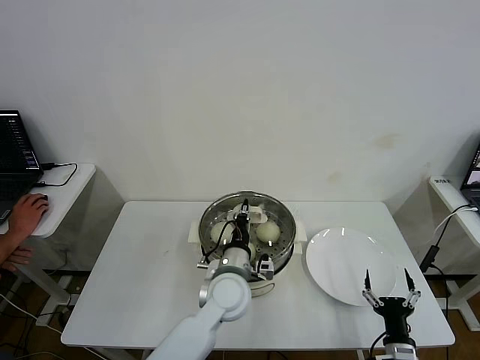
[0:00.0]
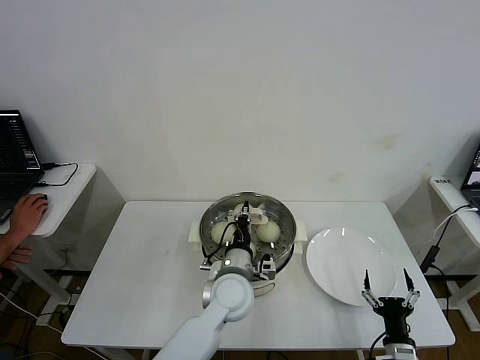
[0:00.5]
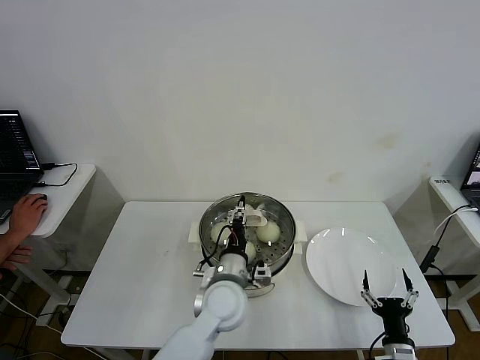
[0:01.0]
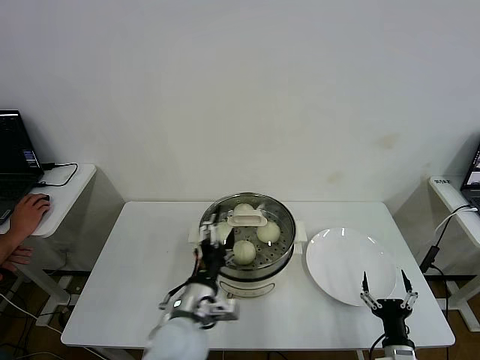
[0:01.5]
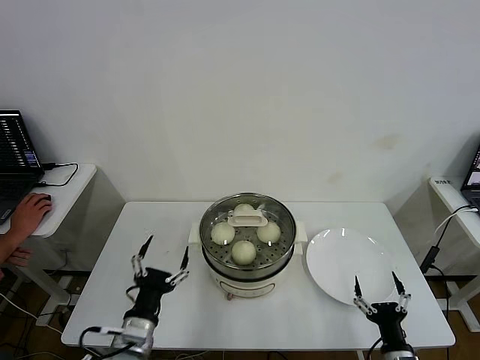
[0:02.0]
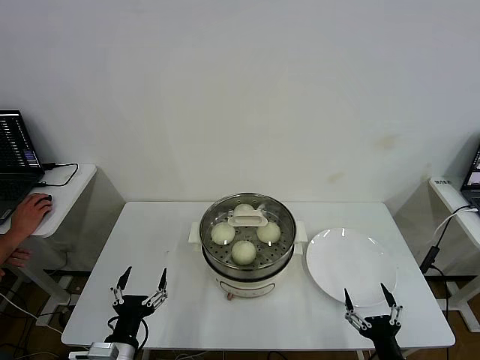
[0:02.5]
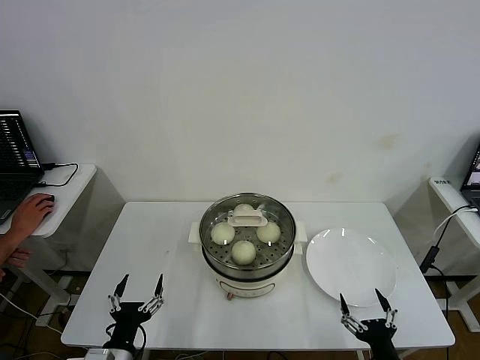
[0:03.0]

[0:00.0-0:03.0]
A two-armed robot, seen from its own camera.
0:00.0 to 0:01.5: The left gripper moves backward and to the left, about 10 cm, and opens its fingers.
0:01.5 to 0:03.0: The left gripper goes roughly 20 cm to the left, backward and downward. The right gripper is displaced backward and upward by roughly 10 cm.

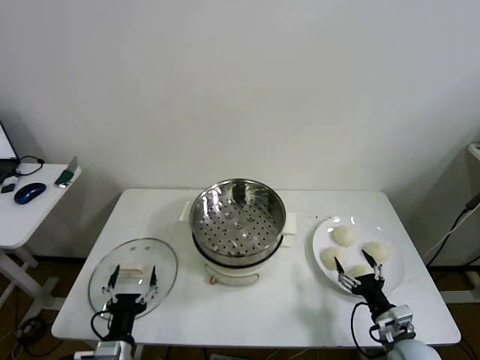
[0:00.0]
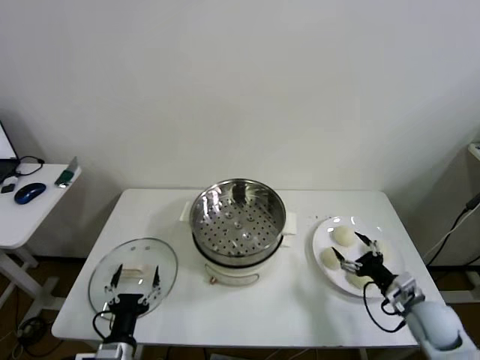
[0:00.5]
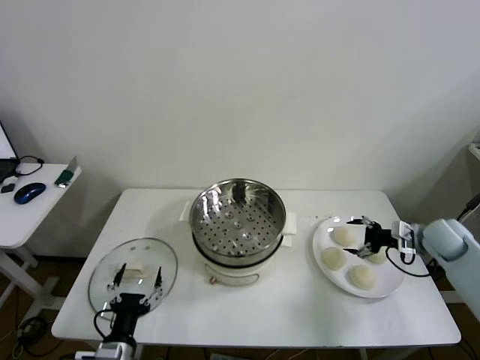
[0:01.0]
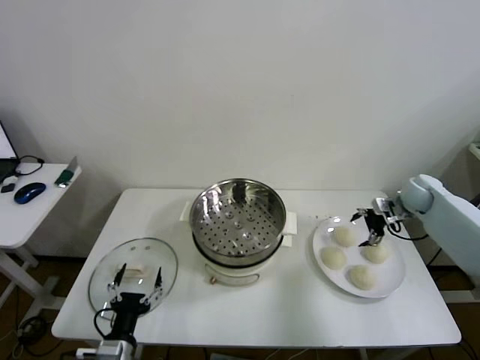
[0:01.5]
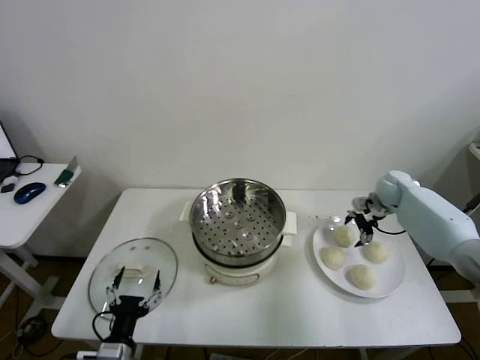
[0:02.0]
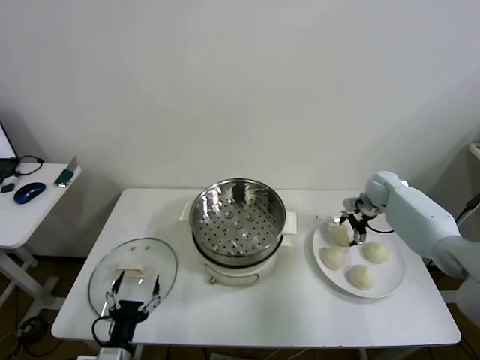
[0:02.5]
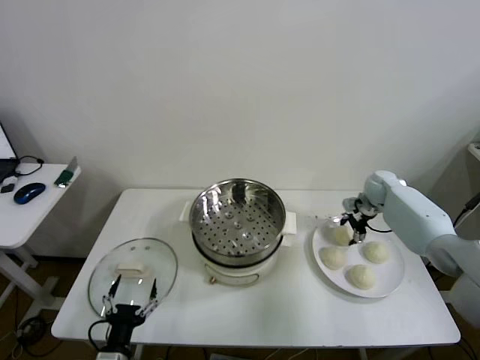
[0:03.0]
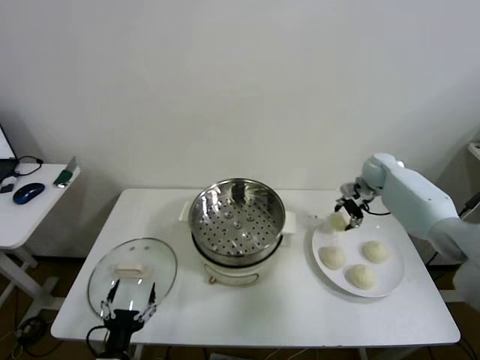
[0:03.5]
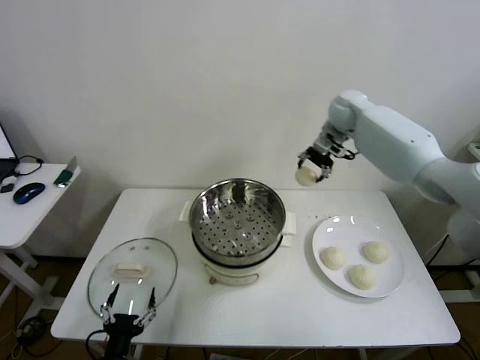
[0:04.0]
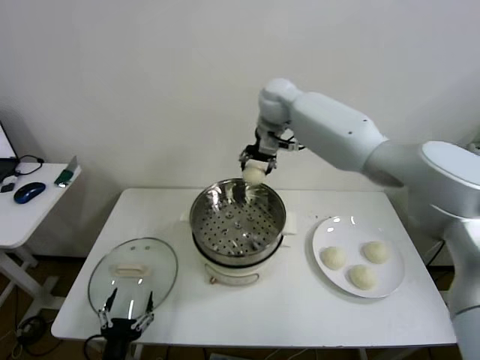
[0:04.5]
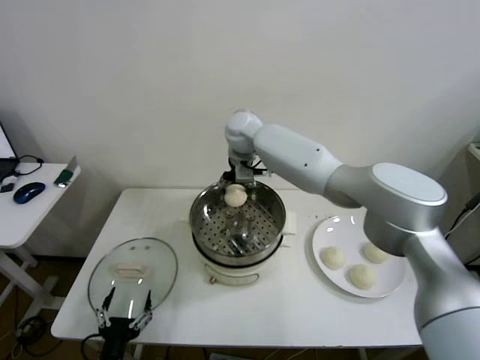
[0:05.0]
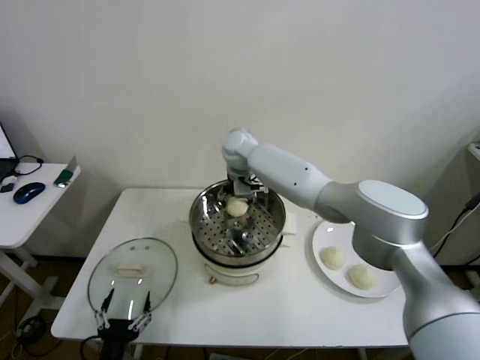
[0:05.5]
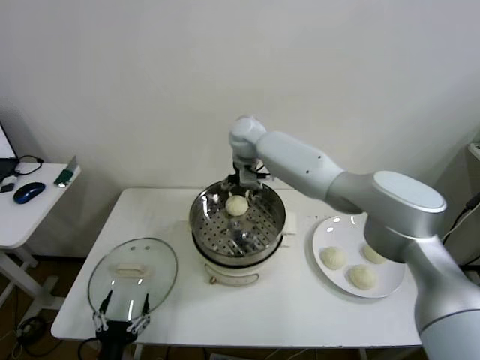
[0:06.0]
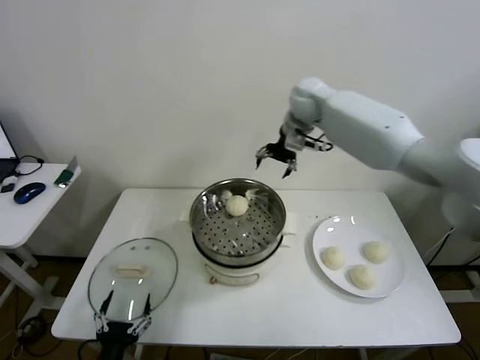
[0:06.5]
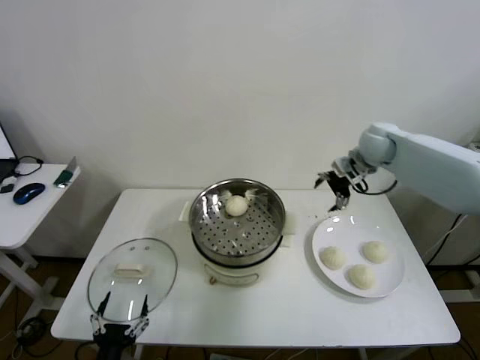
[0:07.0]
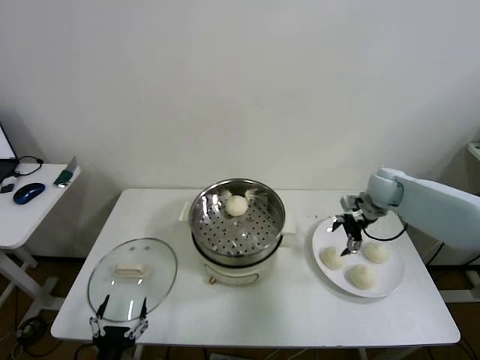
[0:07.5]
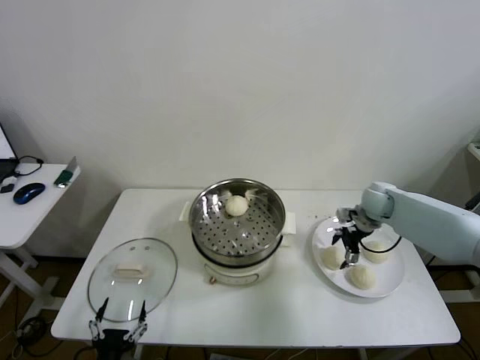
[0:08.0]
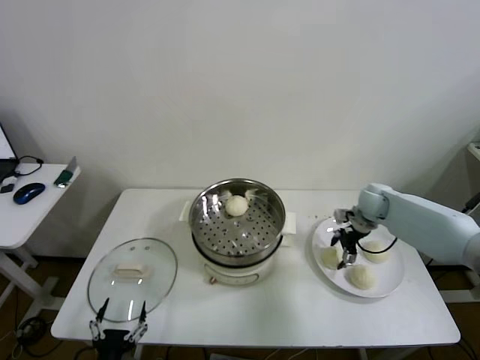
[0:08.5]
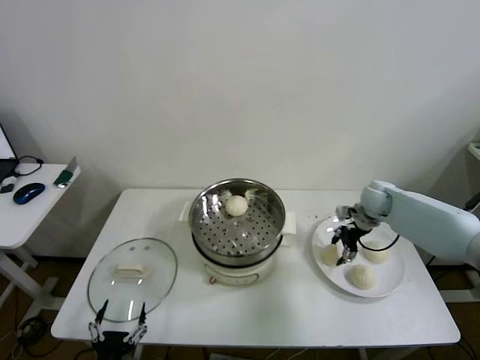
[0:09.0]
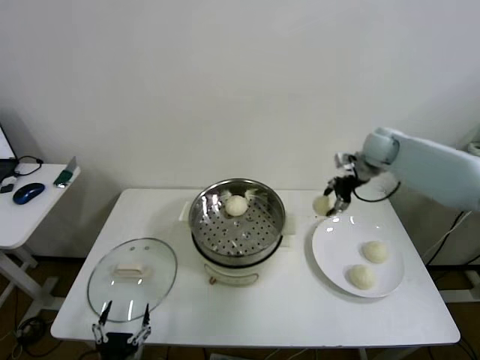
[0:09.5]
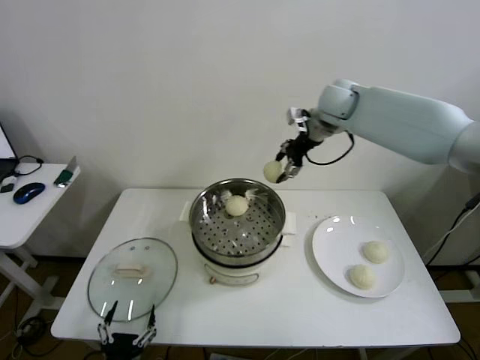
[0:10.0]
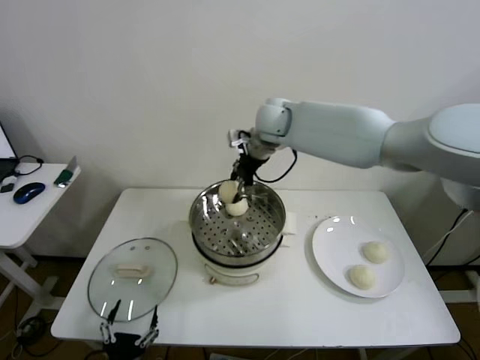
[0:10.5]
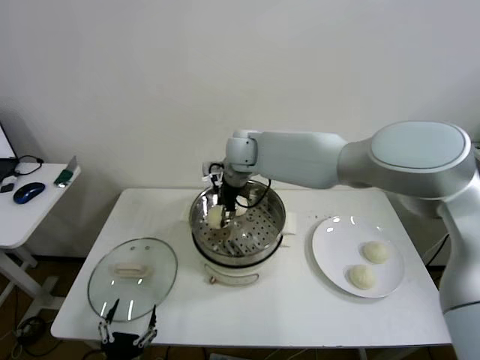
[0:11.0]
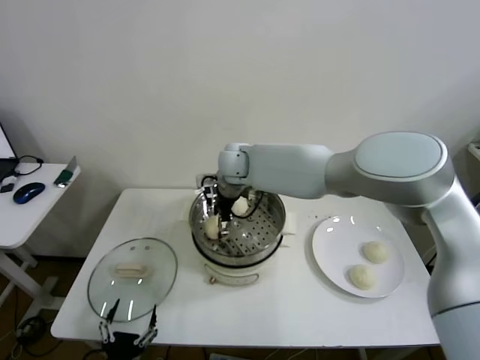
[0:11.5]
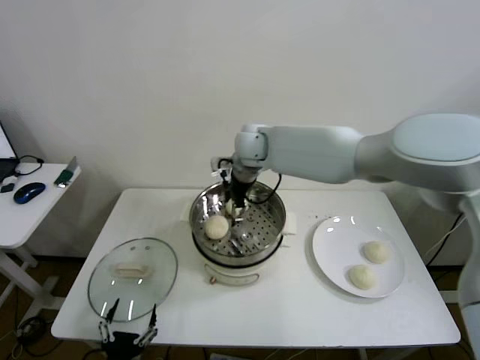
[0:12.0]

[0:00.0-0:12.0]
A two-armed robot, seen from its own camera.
Step, 0:00.0 to 0:03.0: Grasp the baozi in the plate with right gripper.
Step, 0:03.5 to 0:05.5: Place the baozi on the steamer with right gripper.
Step, 0:06.0 to 0:08.5: Grasp the baozi in the plate with right gripper.
Step, 0:09.0 to 0:11.5: Place the baozi on the steamer with right gripper.
0:02.0 to 0:04.0: The right gripper shifts about 30 cm upward and to the left, and closes its fingers.
0:04.0 to 0:06.0: The right gripper moves to the left, some 20 cm, and opens.
0:06.0 to 0:08.0: The right gripper travels to the right and downward by approximately 40 cm.
0:08.0 to 0:10.0: The right gripper travels upward and to the left by some 30 cm, and closes up.
0:10.0 to 0:12.0: The right gripper is displaced to the left and downward by about 15 cm, and opens.

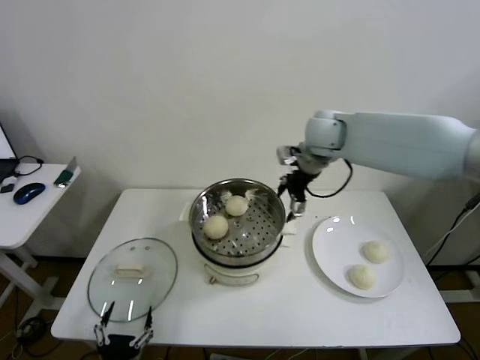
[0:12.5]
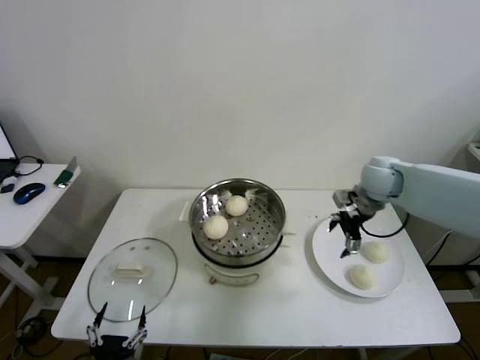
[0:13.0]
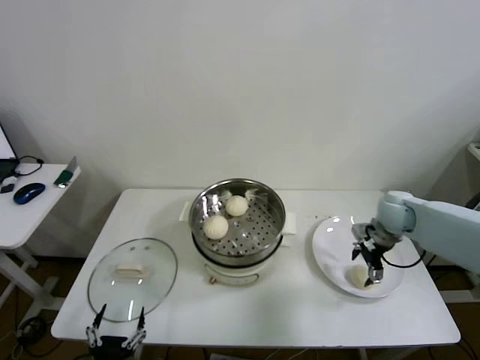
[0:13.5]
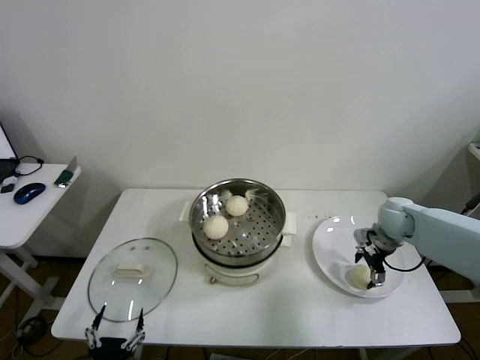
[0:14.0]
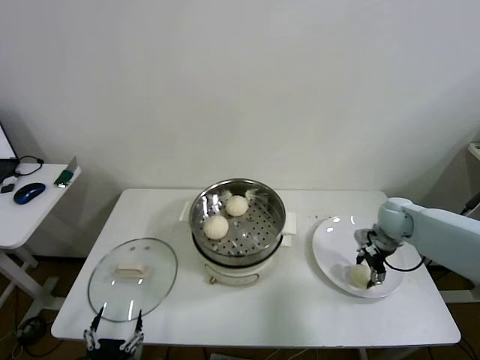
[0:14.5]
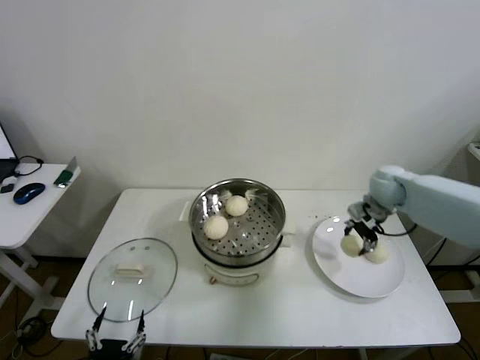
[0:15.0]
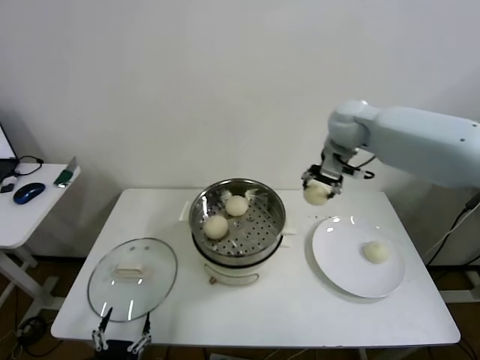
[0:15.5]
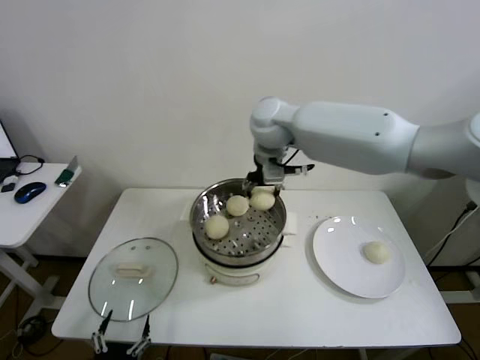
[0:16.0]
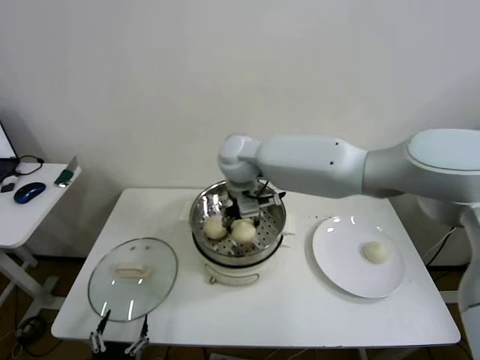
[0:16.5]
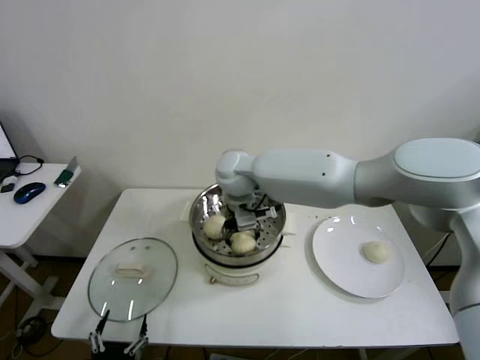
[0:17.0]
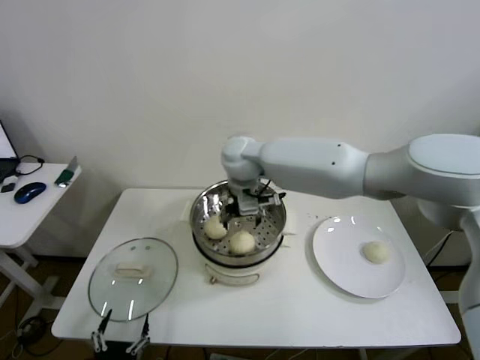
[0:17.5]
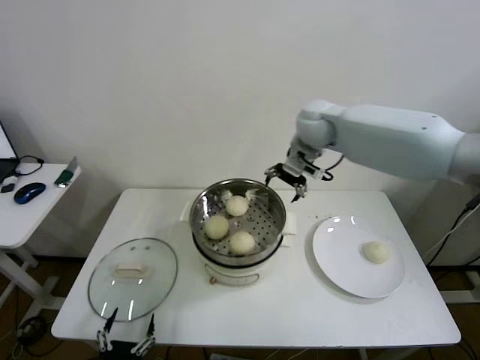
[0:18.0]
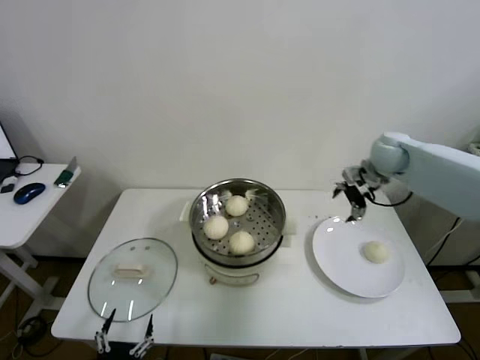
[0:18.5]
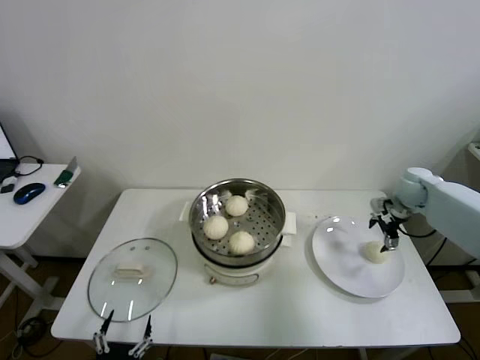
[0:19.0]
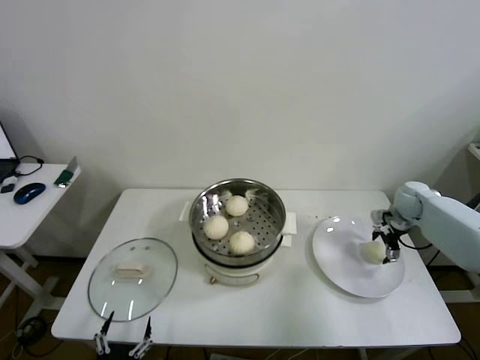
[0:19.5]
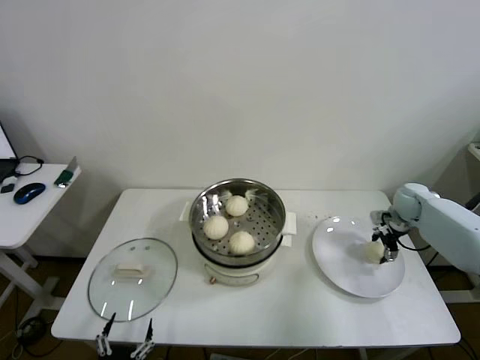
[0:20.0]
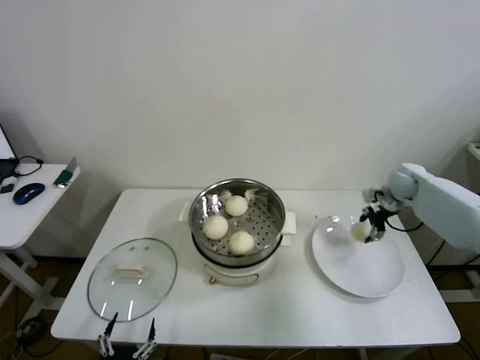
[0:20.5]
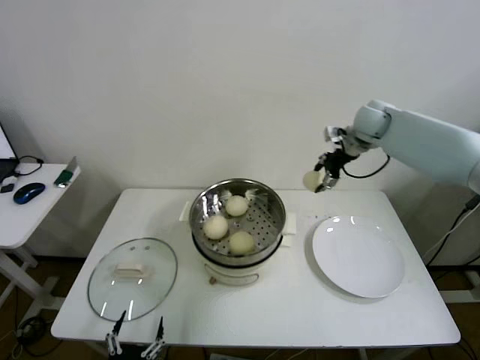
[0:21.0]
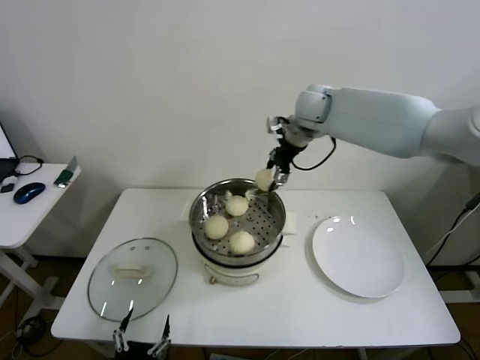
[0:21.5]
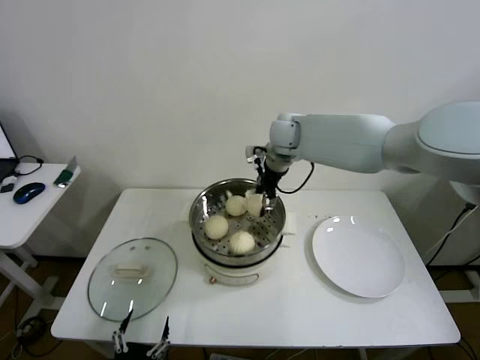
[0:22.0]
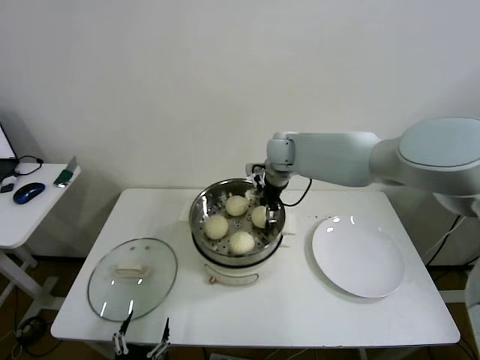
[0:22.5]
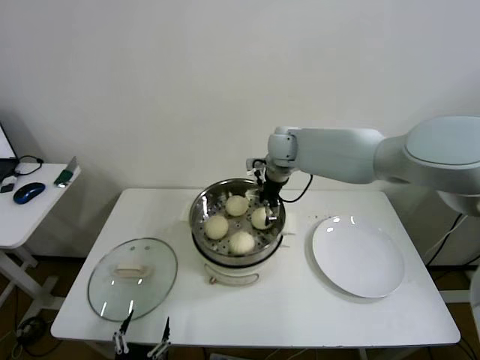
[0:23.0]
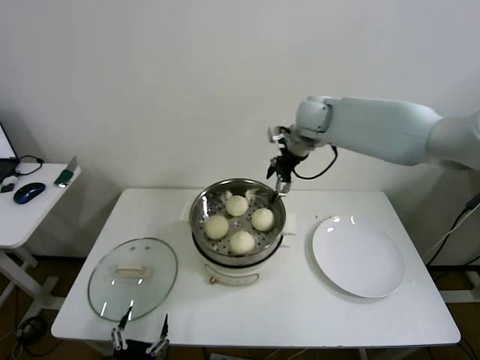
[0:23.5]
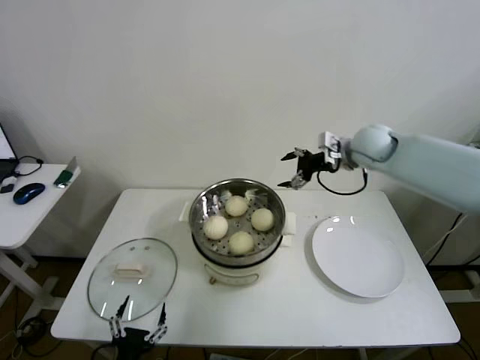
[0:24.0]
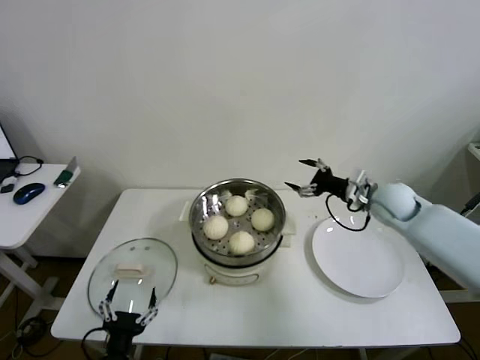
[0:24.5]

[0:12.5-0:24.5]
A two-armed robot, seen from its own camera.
Step, 0:12.5 to 0:14.5: Grasp the baozi in the plate with right gripper.
Step, 0:15.0 to 0:17.0: Place the baozi on the steamer with right gripper.
Step, 0:17.5 to 0:20.0: Grasp the baozi in the plate with right gripper.
Step, 0:20.5 to 0:22.5: Place the baozi on the steamer with right gripper.
0:12.5 to 0:14.5: The right gripper moves downward and to the right, approximately 30 cm, and closes.
0:14.5 to 0:16.5: The right gripper heads to the left and upward, covering roughly 40 cm.
0:16.5 to 0:18.5: The right gripper is displaced to the right by some 35 cm, and opens its fingers.
0:18.5 to 0:20.5: The right gripper shifts roughly 10 cm downward and to the right, and closes its fingers.
0:20.5 to 0:22.5: The right gripper goes approximately 35 cm to the left.
0:22.5 to 0:24.5: The left gripper shifts some 5 cm forward. The right gripper travels to the right and backward by about 25 cm, and opens up.
